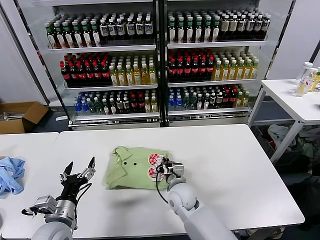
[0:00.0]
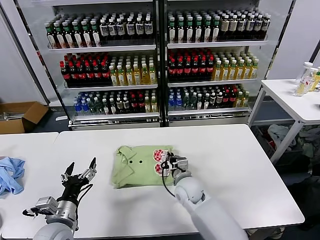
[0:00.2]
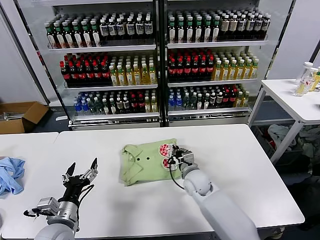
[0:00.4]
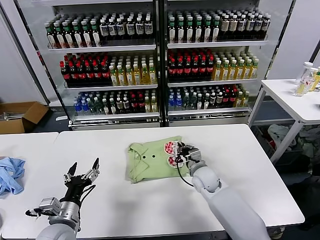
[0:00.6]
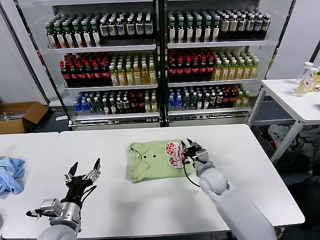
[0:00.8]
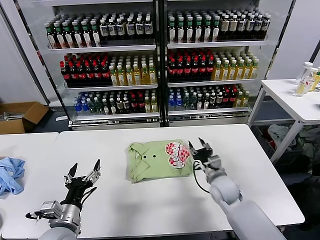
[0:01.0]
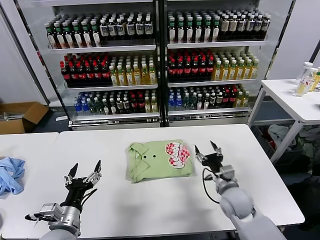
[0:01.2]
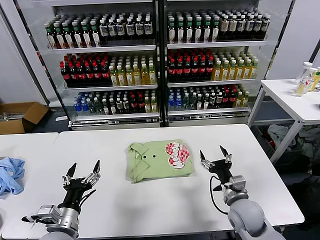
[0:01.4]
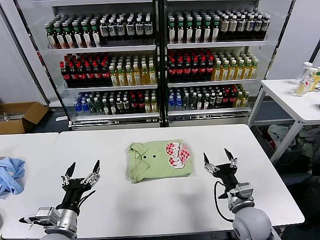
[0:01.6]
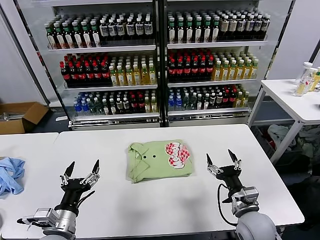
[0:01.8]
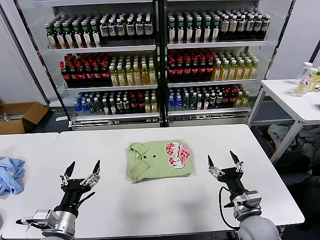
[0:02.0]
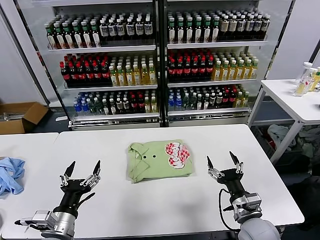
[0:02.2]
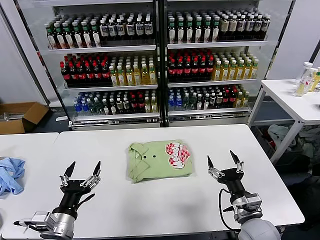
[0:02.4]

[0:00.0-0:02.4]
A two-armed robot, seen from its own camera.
Task of the whole recording: fold and organize the clothes.
0:00.0 to 0:01.2: The right gripper heads to the right, covering some 15 cm, and opens up.
0:01.2 to 0:02.4: The right gripper moves backward, some 10 cm.

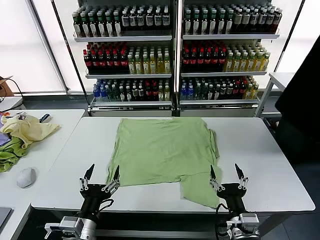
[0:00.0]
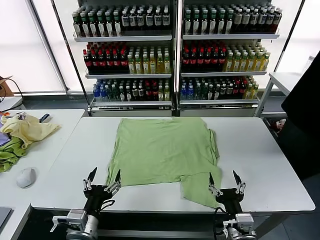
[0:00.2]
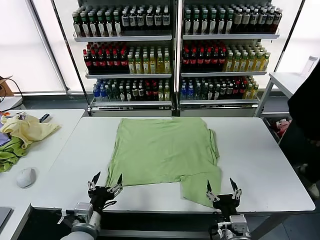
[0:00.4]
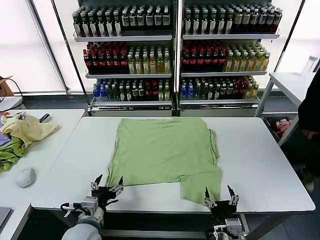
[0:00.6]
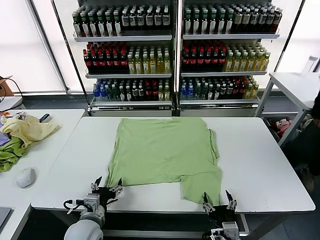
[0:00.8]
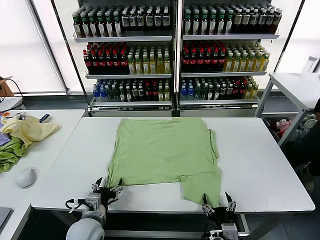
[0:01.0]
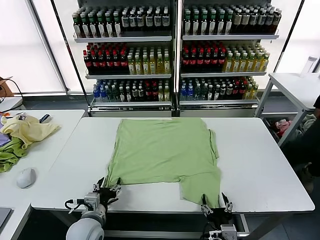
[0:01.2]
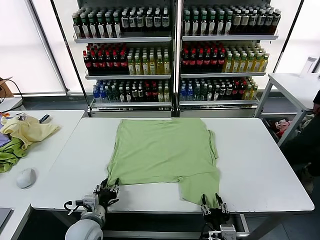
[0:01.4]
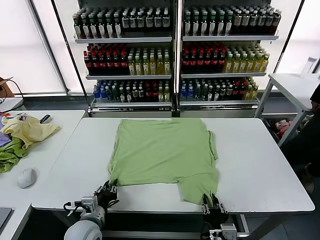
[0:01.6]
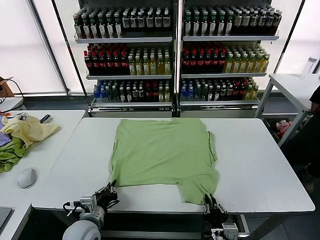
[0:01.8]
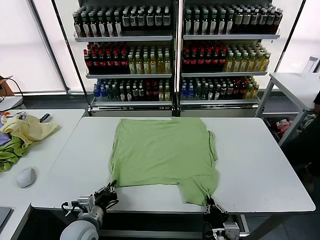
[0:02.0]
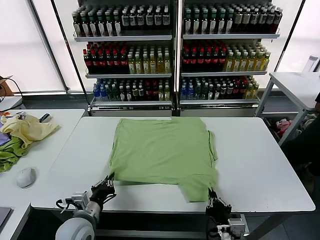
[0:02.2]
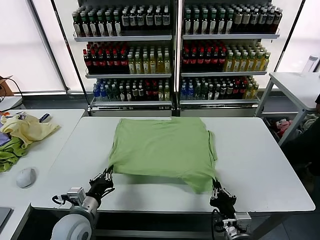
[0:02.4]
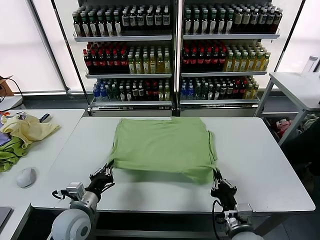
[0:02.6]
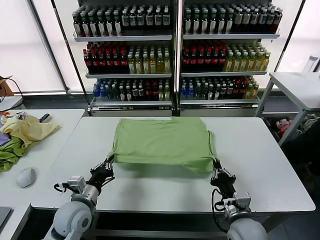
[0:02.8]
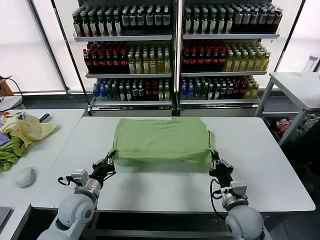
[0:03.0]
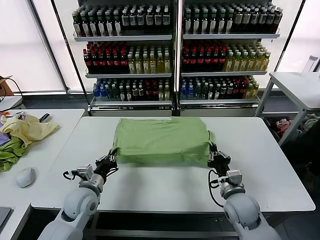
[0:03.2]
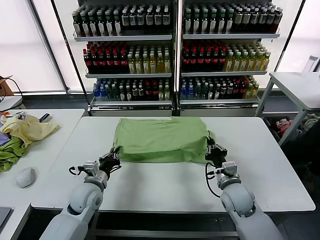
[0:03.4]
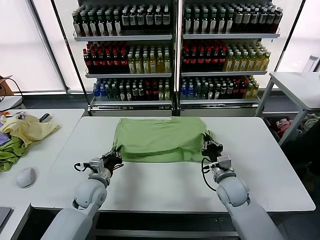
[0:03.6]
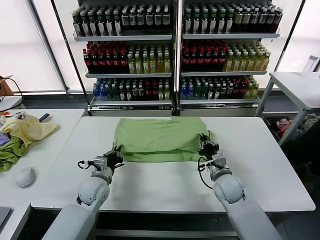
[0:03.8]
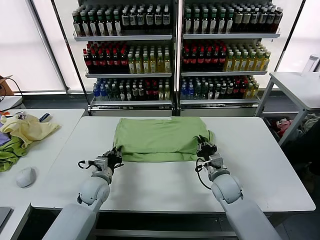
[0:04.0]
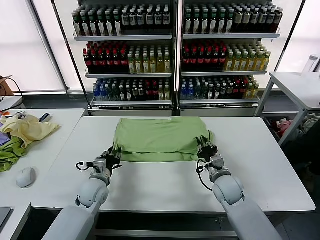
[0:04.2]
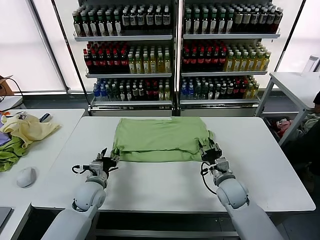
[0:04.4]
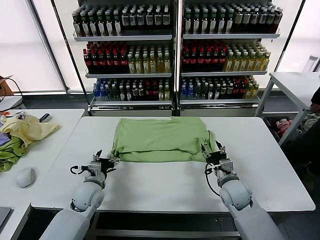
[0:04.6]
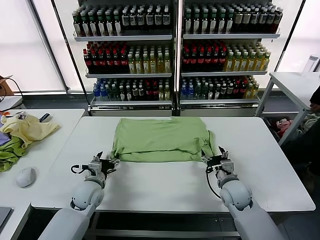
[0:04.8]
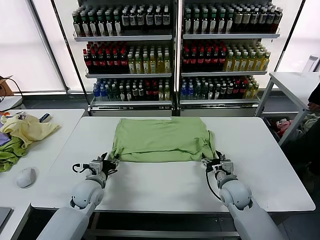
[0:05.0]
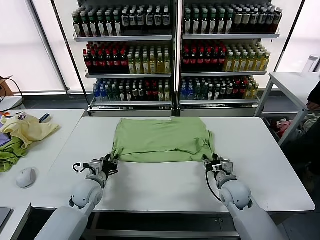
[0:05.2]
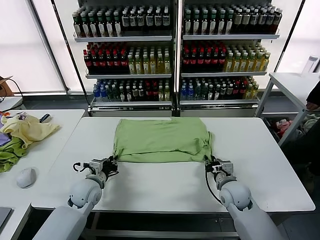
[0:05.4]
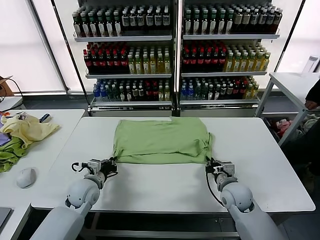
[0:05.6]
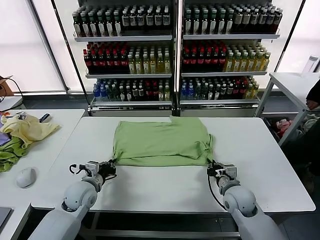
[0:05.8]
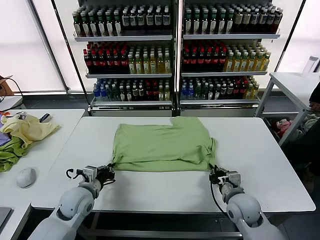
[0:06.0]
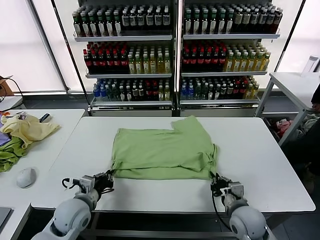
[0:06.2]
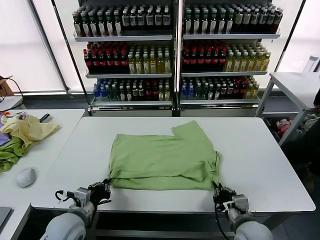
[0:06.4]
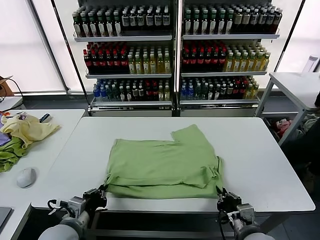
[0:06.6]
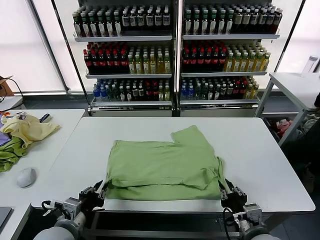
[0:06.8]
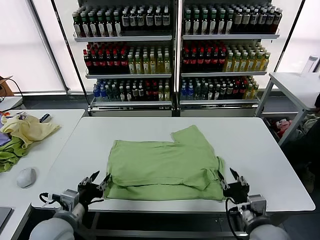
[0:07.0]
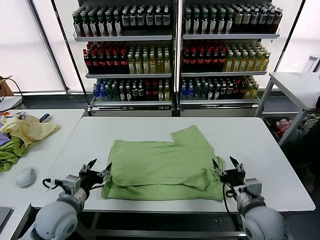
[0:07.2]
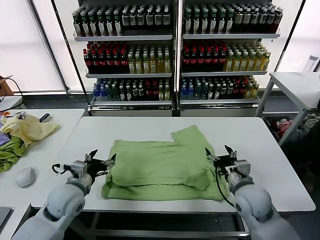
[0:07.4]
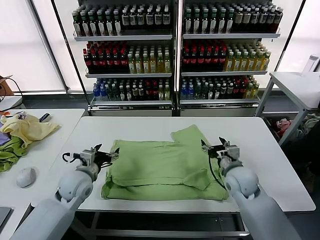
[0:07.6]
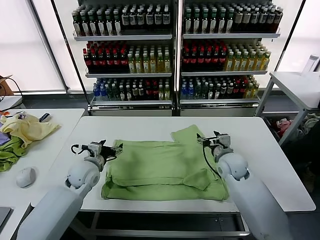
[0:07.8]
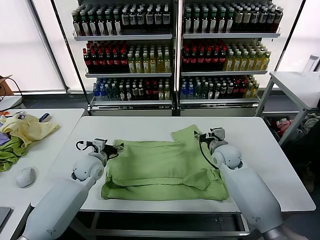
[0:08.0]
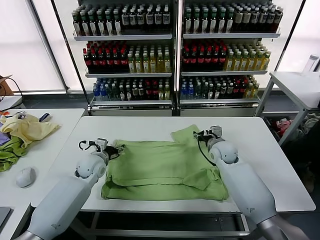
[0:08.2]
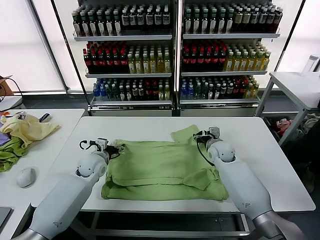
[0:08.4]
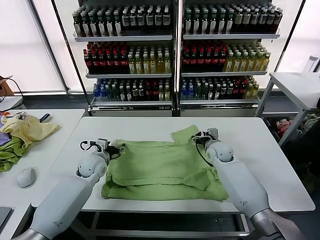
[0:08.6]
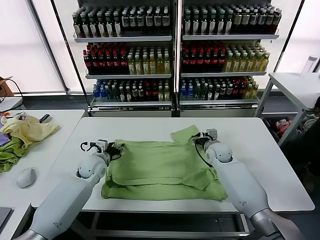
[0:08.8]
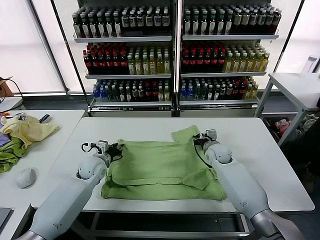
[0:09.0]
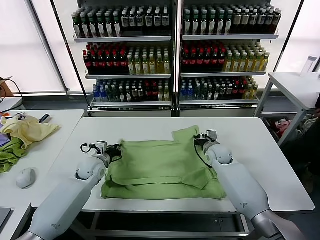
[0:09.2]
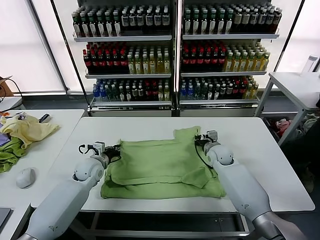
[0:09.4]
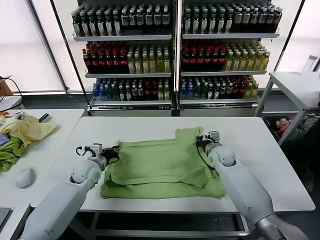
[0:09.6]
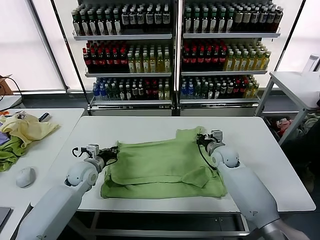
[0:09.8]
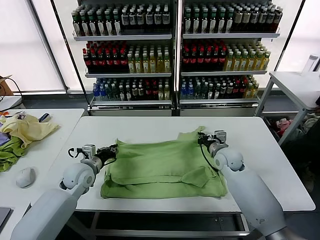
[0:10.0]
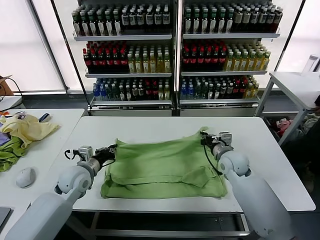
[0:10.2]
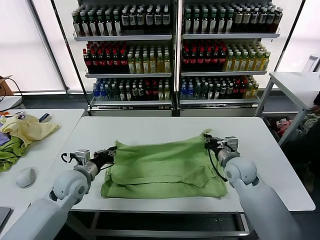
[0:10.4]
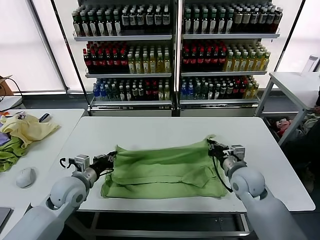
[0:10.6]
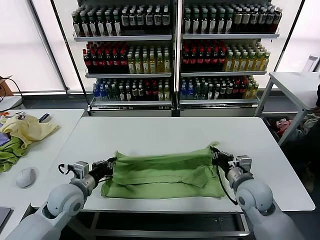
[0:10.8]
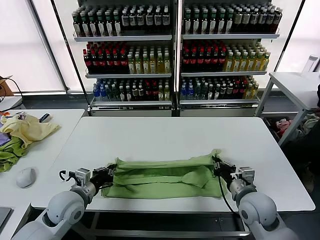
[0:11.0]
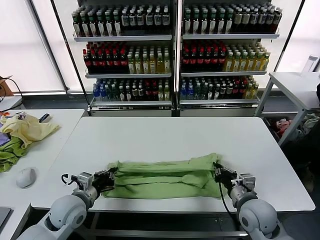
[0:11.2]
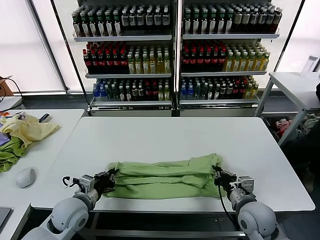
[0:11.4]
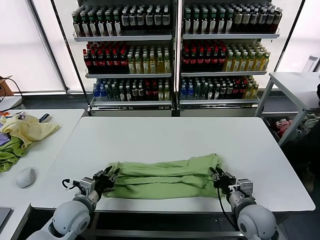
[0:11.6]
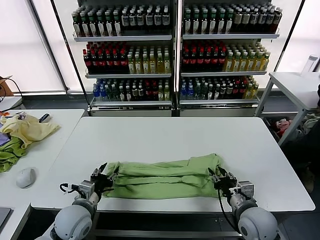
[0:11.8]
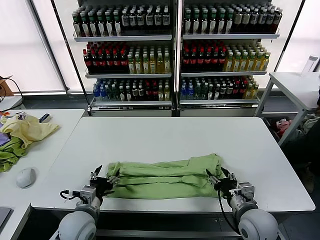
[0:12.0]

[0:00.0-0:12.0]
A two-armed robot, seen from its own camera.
Task of the whole recording: fold and organize the clothes.
Step, 0:00.0 to 0:02.0: use both grippers simultaneously to clamp the lower edge of the clothing fabric.
Step, 0:02.2 to 0:04.2: use both grippers to drag the lower edge of the fabric forward and fold it over the upper edge.
Step, 0:04.4 to 0:06.8: Drag the clothes downward with both gripper.
Step, 0:07.0 to 0:09.4: use both grippers simultaneously to clamp the upper edge of the clothing fabric.
Step, 0:09.6 to 0:11.8: use both grippers to drag the upper edge of the fabric backward and fold it over the lower edge.
0:01.6 to 0:03.0: The left gripper moves forward, some 5 cm; the right gripper shifts about 15 cm forward.
0:03.0 to 0:04.4: Both grippers move forward, about 5 cm. The left gripper opens up, while the right gripper opens.
0:04.4 to 0:06.0: The right gripper moves backward, approximately 5 cm, and closes its fingers; the left gripper closes.
0:06.0 to 0:07.6: The right gripper heads forward and upward, covering roughly 10 cm, and opens its fingers, while the left gripper travels backward and back again, some 15 cm each way, and opens.
0:07.6 to 0:09.0: Both grippers move forward and downward, roughly 10 cm. The left gripper closes up. The right gripper closes up.
0:09.0 to 0:10.4: Both grippers travel together backward and upward, some 10 cm. The left gripper closes, while the right gripper closes.
0:10.4 to 0:12.0: The left gripper moves backward and downward, approximately 10 cm, and opens its fingers; the right gripper shifts about 15 cm backward, and opens its fingers.

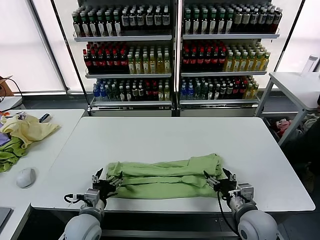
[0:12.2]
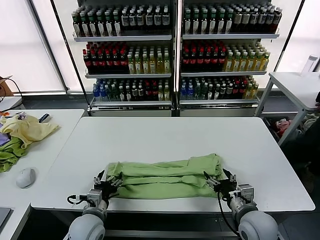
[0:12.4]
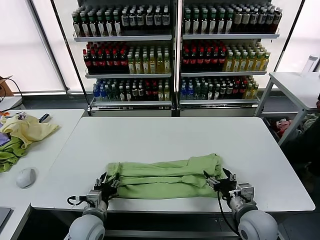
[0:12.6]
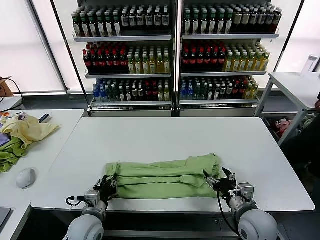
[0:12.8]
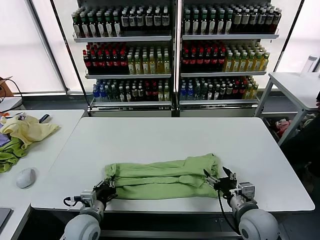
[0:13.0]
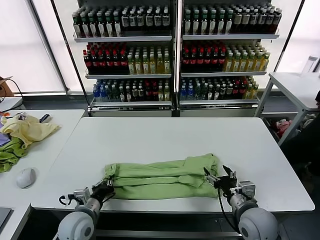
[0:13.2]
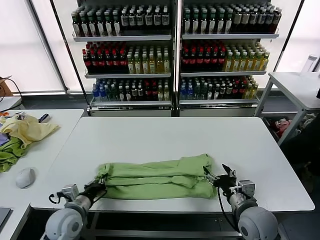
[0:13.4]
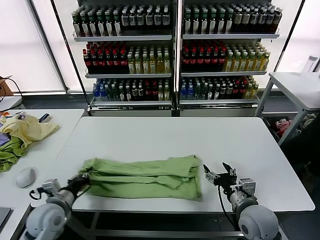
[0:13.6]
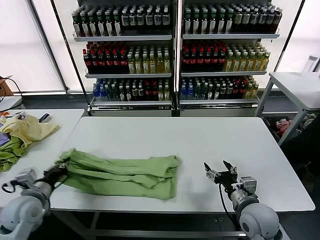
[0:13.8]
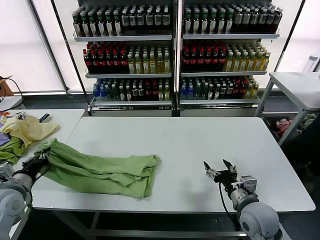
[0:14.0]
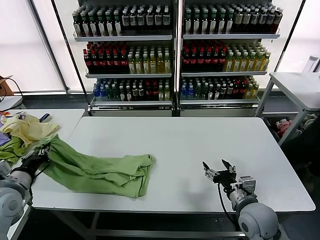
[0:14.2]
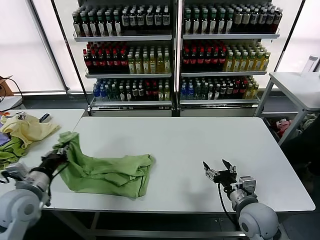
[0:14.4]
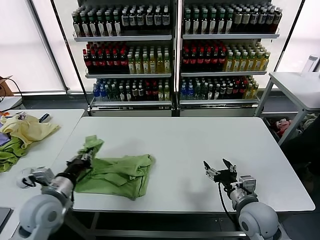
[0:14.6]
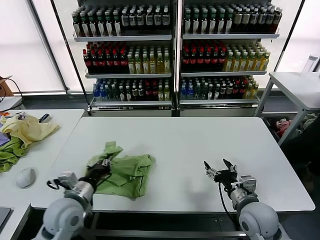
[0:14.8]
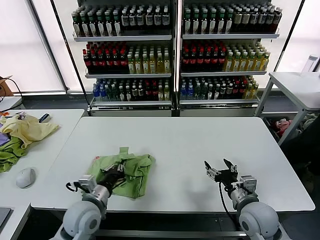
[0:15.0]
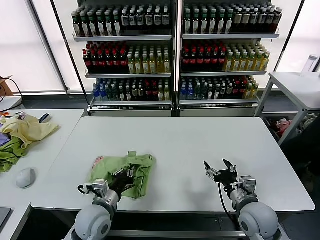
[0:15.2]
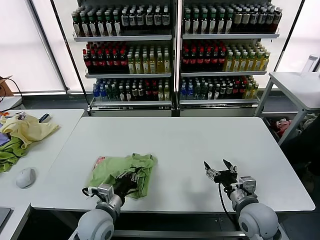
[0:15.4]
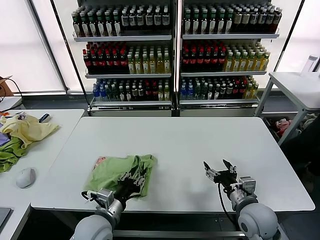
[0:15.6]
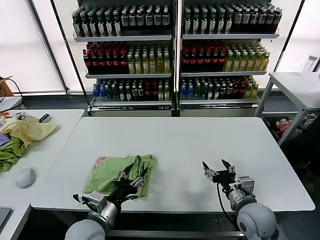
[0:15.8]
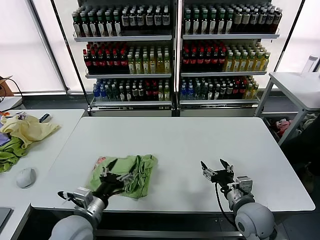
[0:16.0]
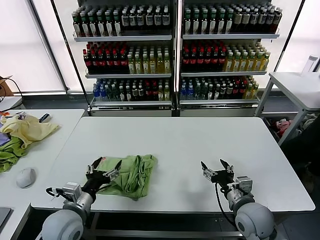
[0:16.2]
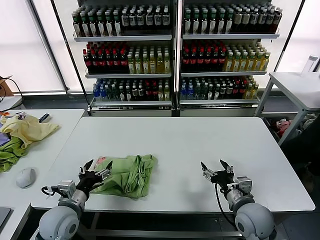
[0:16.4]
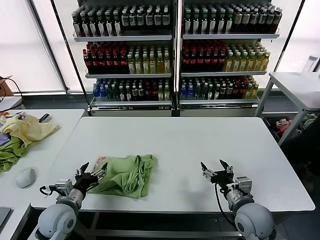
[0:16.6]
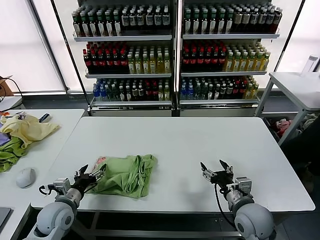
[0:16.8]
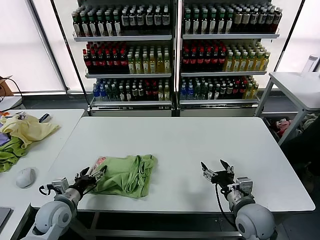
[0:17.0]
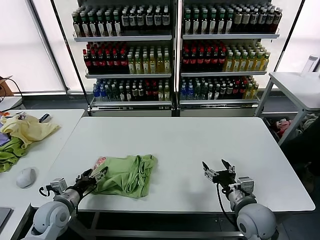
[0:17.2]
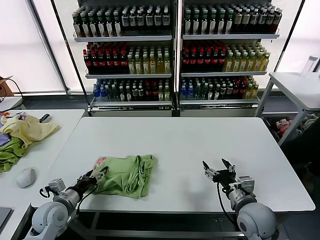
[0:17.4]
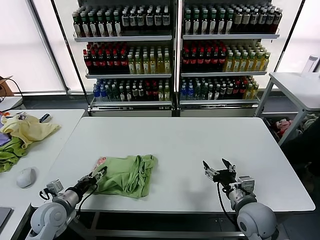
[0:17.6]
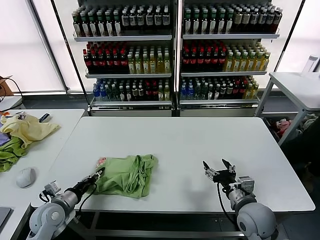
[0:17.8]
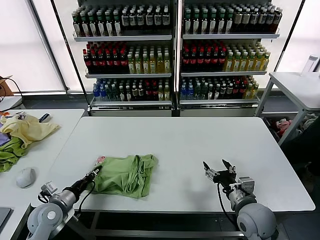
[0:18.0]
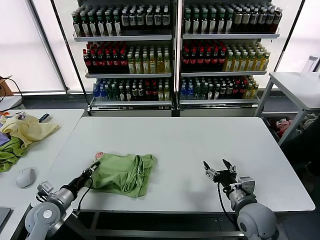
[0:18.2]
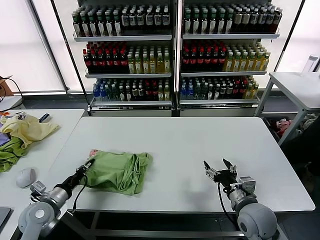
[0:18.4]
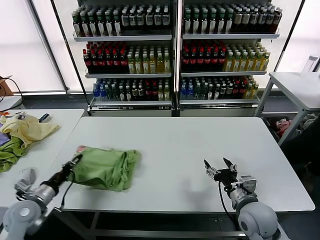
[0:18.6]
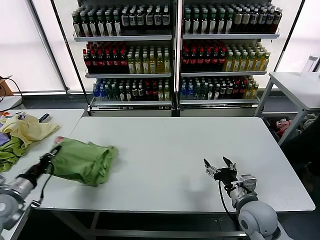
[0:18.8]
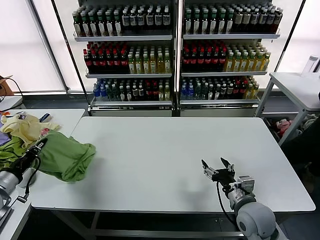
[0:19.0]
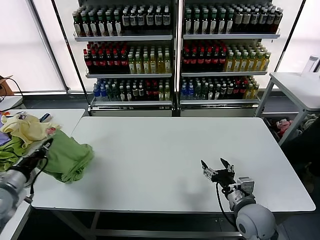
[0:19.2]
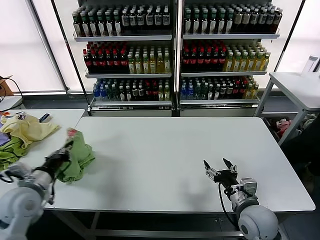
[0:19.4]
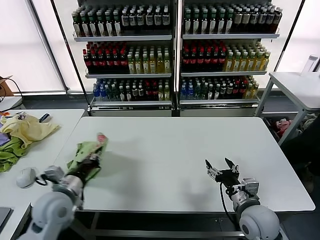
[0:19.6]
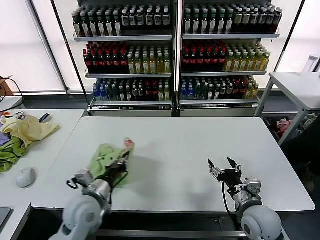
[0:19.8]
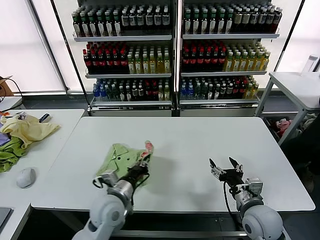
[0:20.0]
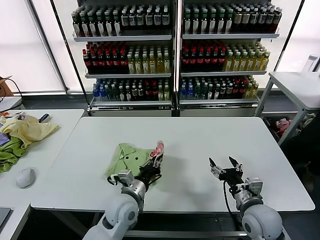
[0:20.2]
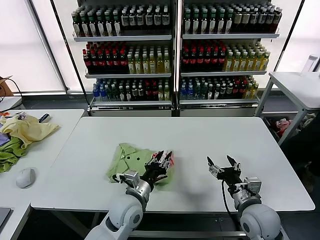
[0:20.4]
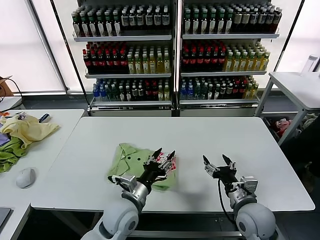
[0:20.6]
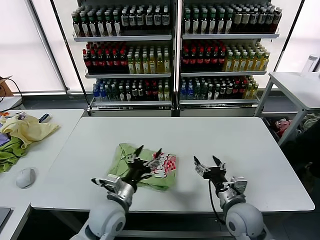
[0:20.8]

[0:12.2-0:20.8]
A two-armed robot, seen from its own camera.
Task of the whole recording: fold and organize the clothes.
Step, 0:12.2 to 0:13.2: use the left gripper to clamp the left edge of the fabric.
Step, 0:13.4 to 0:15.6: use the left gripper to drag the left edge of the fabric to the left and folds it over the right edge.
Step, 0:15.8 to 0:20.4: Flip the folded clothes over with left gripper.
0:12.2 to 0:13.6: The left gripper moves to the left, roughly 10 cm, and closes.
0:13.6 to 0:15.0: The left gripper moves to the right, about 10 cm.
0:15.0 to 0:16.6: The left gripper moves to the left, about 5 cm, and opens its fingers.
0:16.6 to 0:18.0: The left gripper is displaced to the left by roughly 5 cm, and closes up.
0:18.0 to 0:19.4: The left gripper goes roughly 10 cm upward.
0:19.4 to 0:20.8: The left gripper moves to the right, about 25 cm, and opens.
